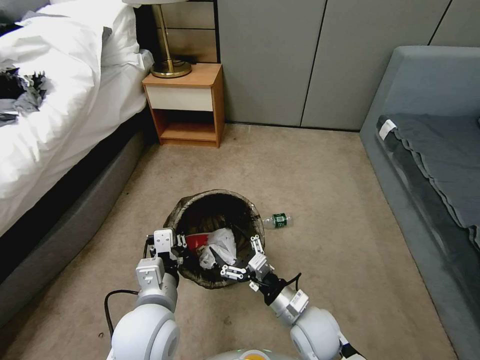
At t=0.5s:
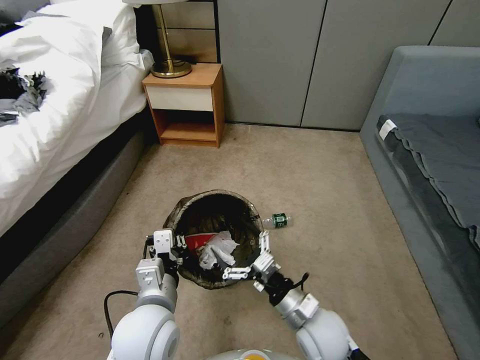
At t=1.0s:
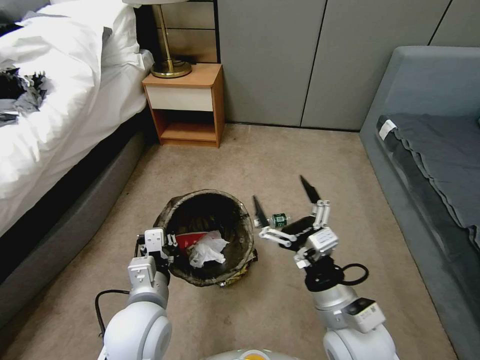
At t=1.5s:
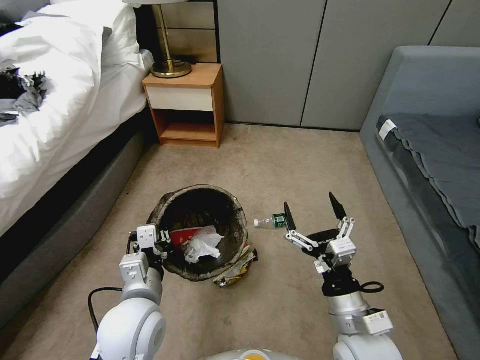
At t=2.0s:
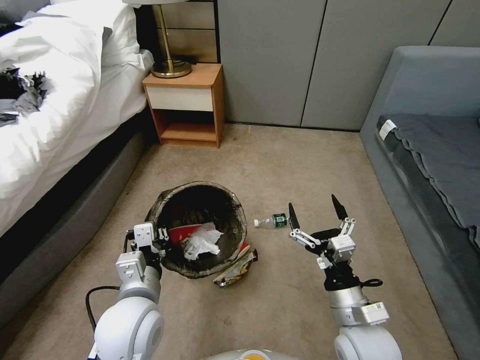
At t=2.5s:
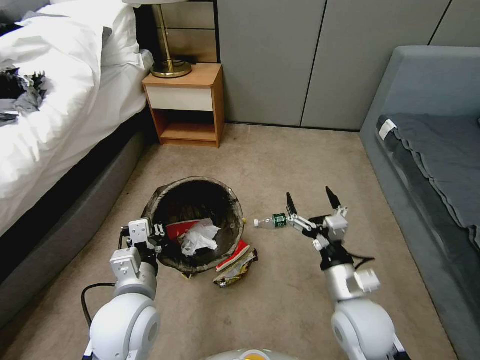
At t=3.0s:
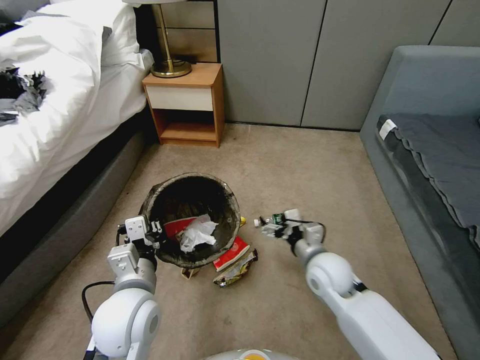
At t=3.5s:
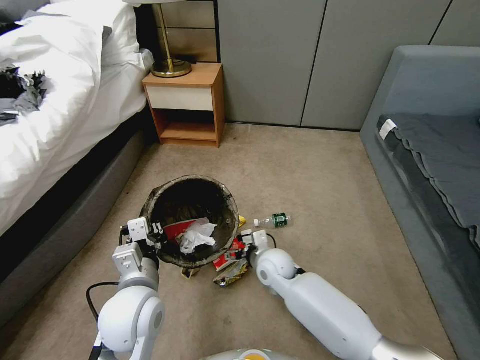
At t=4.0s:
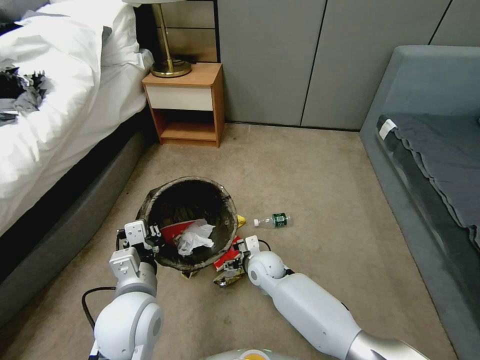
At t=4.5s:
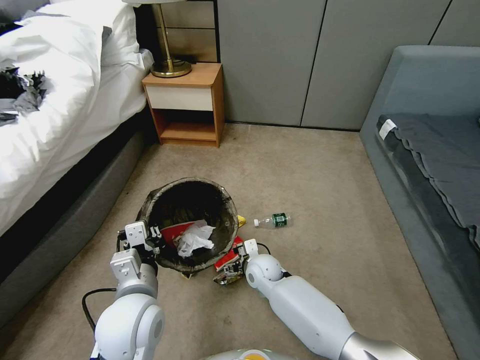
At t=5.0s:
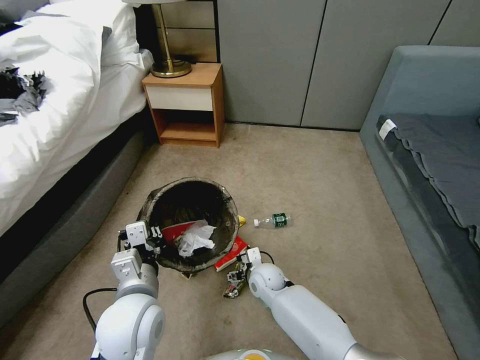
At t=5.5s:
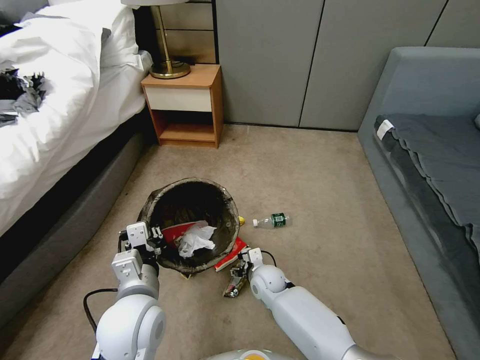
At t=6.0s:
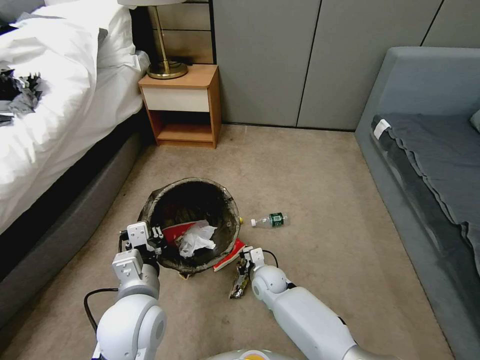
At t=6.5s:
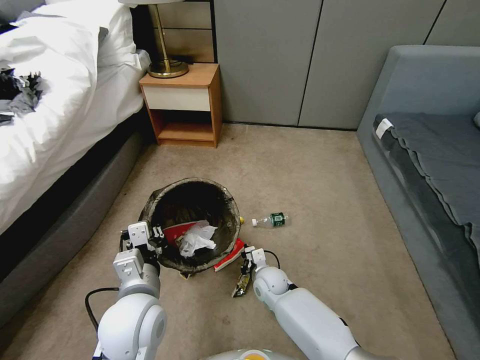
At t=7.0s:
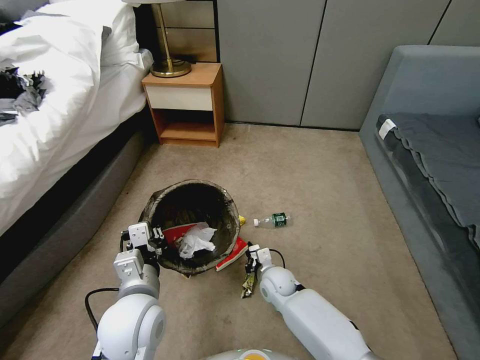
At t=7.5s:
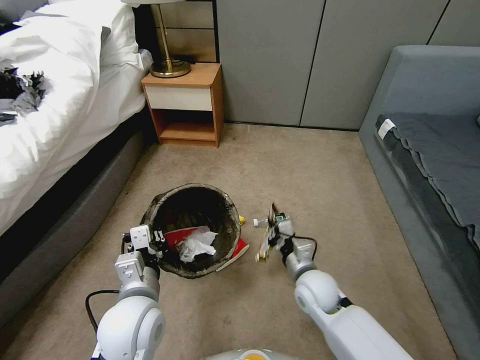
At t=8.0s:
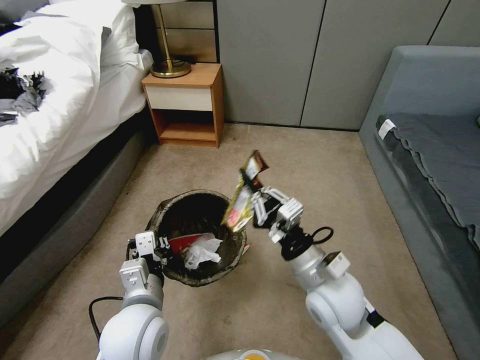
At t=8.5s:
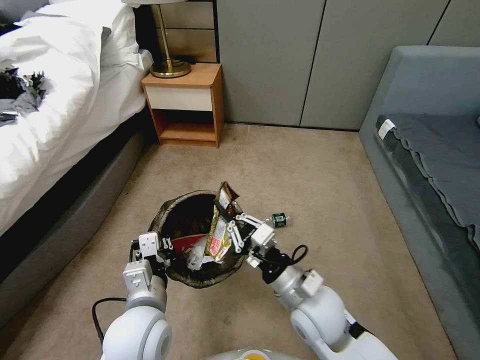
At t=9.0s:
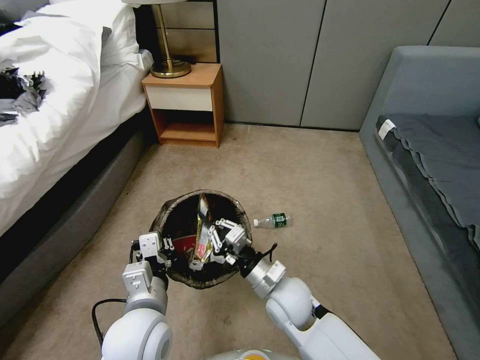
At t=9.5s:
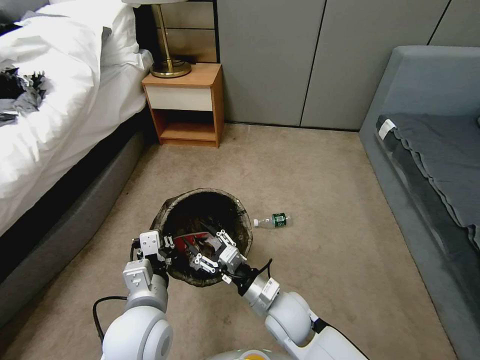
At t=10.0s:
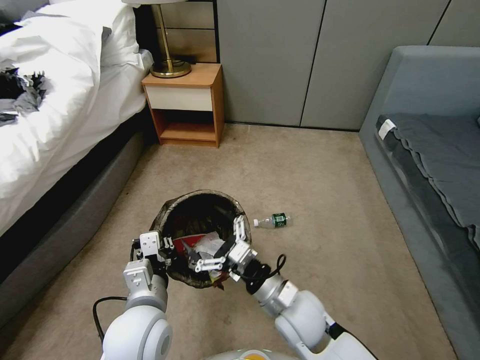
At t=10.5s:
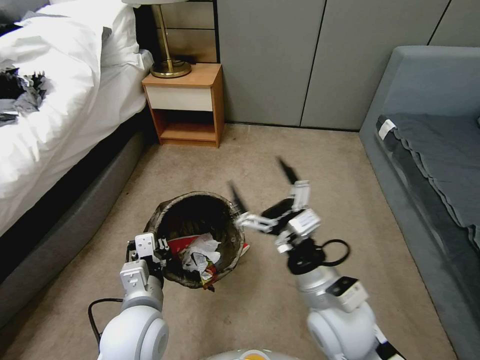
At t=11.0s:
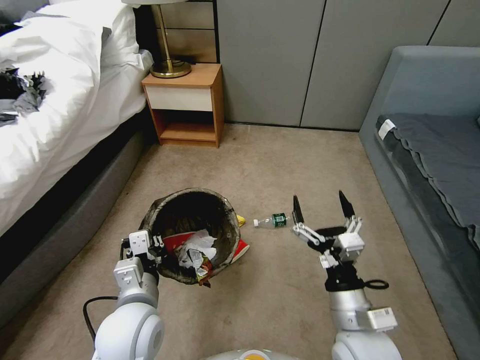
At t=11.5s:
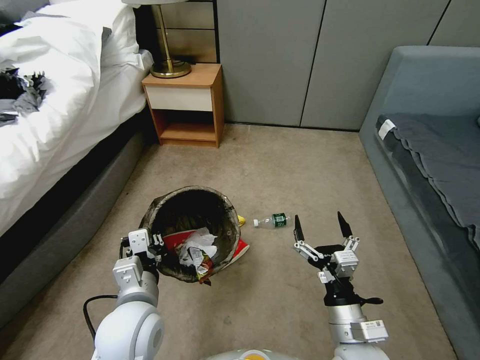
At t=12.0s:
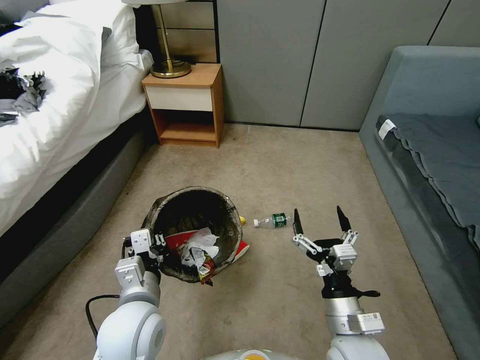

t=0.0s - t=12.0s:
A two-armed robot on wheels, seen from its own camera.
Task of the whole recording: Pick up the trash bin, then pick up the garbage from the floor and place it into the trash bin.
t=0.0s - t=2.0s: The right gripper moves upward and to the right, about 10 cm.
t=2.0s - t=4.0s: The right gripper is displaced forward, to the left and downward by roughly 30 cm.
t=4.0s - t=6.0s: The right gripper is displaced downward by some 5 cm, and closes up.
t=6.0s - t=8.0s: The right gripper shifts roughly 25 cm upward and backward, and closes.
t=8.0s - t=10.0s: The right gripper travels downward and to the left by some 10 cm, and opens up.
t=10.0s - t=12.0s: The right gripper is displaced to the right and backward by about 10 cm, and moves some 10 cm upward and comes back.

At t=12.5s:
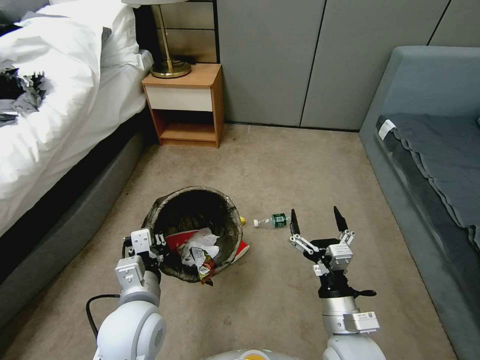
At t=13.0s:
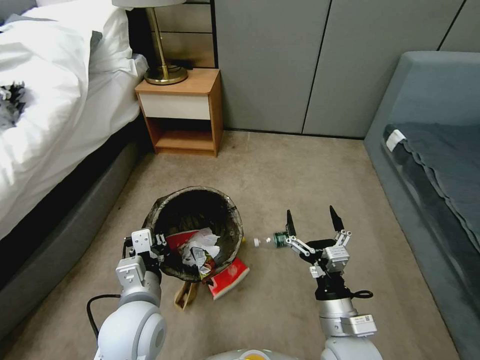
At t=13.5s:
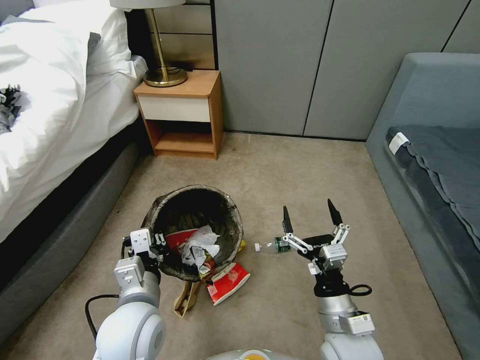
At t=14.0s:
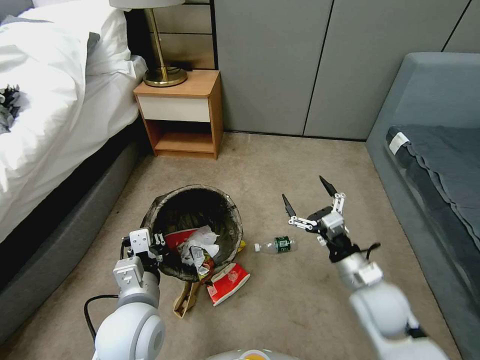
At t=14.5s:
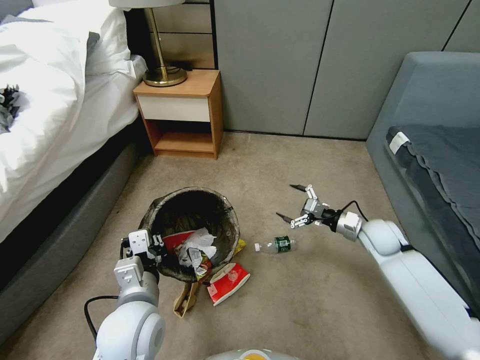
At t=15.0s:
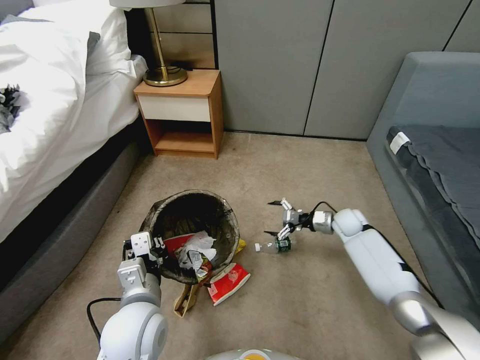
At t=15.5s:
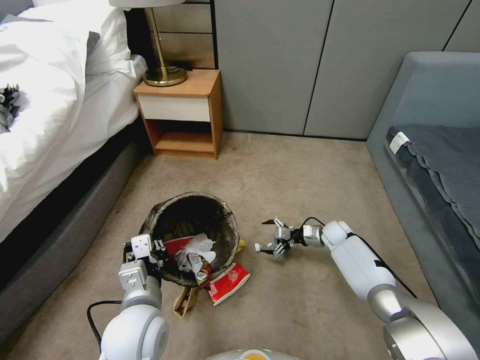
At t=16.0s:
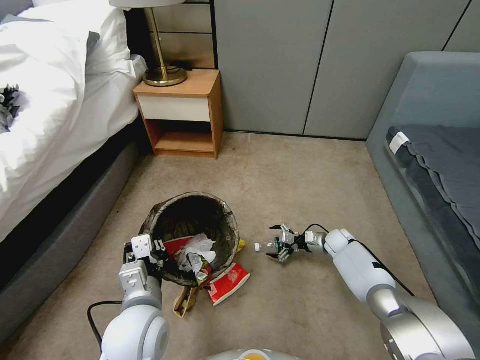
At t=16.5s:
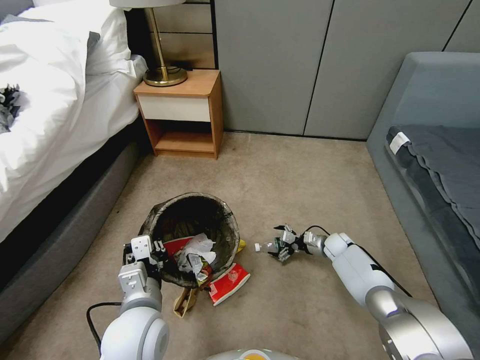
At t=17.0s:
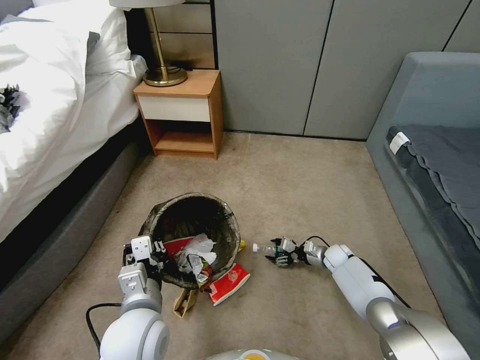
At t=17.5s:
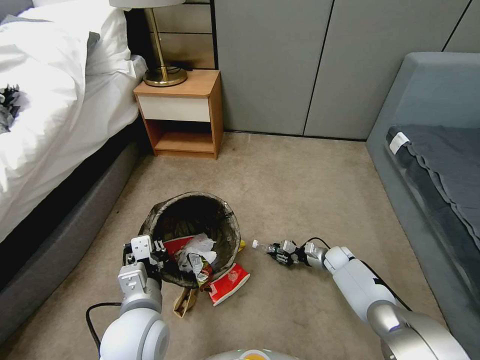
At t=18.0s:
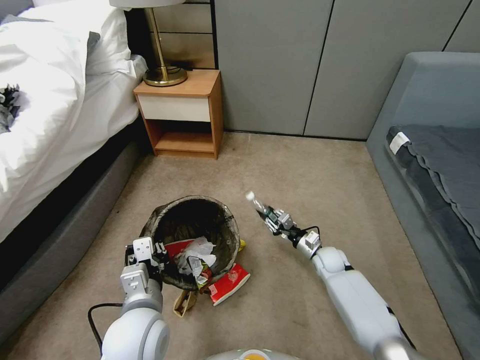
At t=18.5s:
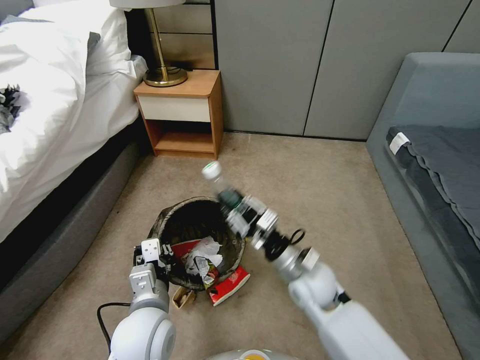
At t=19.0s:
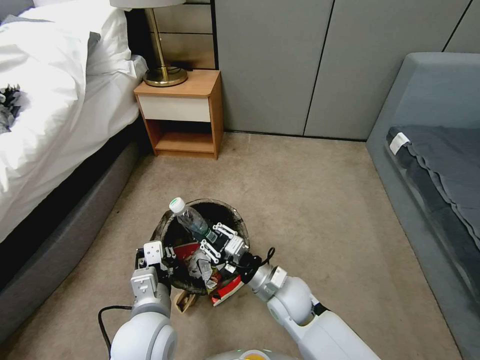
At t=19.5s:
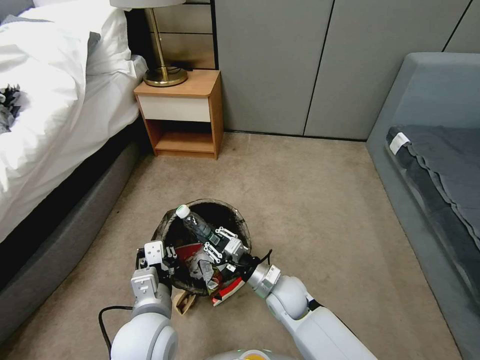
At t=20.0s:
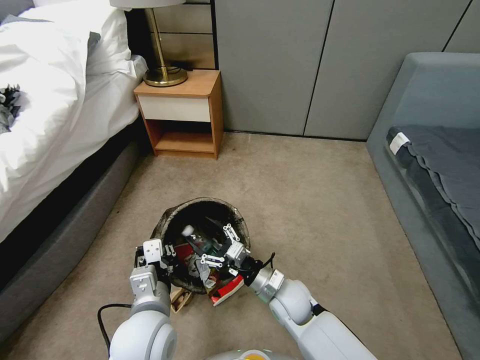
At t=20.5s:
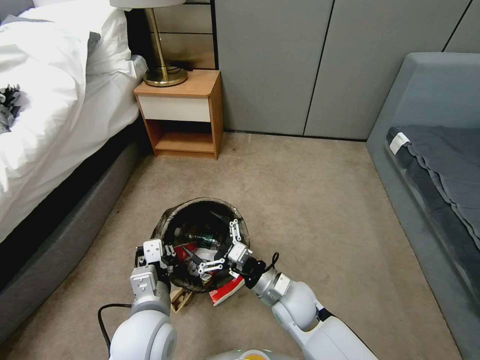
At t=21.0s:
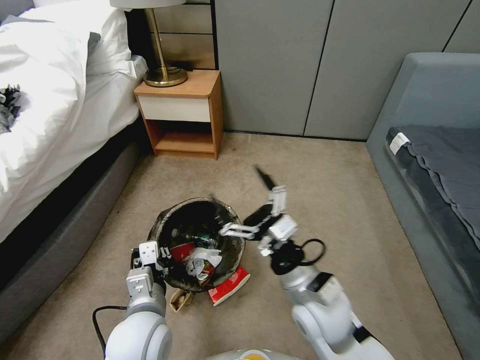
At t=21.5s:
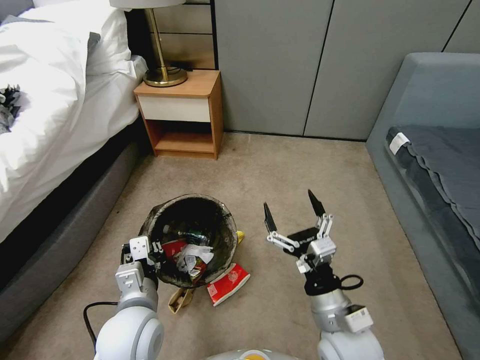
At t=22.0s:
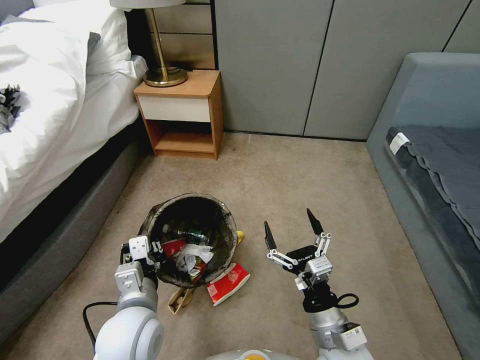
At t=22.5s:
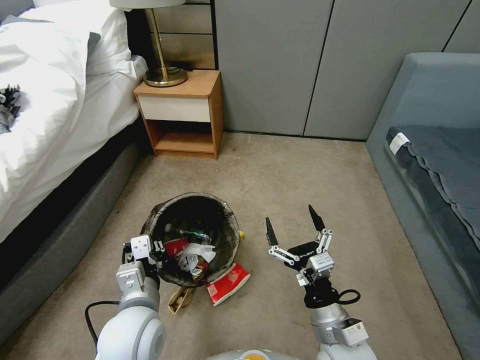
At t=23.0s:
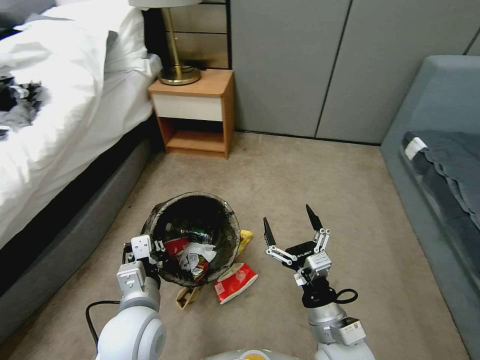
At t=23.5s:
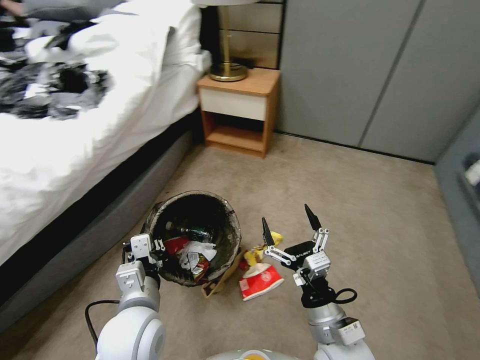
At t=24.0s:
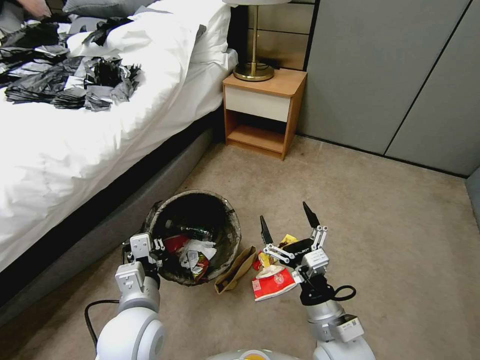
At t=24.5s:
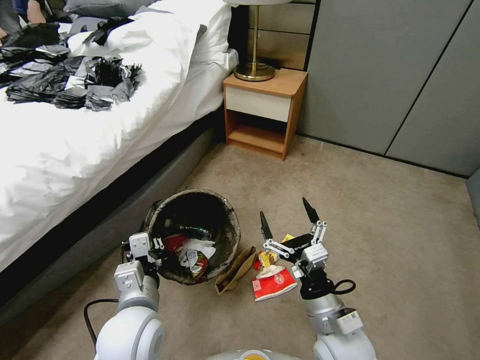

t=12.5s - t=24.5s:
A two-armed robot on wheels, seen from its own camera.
Task of the whole recording: Pick up the trash bin, then pick up the garbage from the floor and place it into the trash bin.
t=12.5s - t=14.5s: The right gripper moves forward and to the right, some 30 cm.
t=14.5s - t=16.5s: The right gripper shifts some 15 cm downward.
t=16.5s - t=18.5s: The right gripper moves upward, to the left and backward, roughly 30 cm, and closes its fingers.
t=18.5s - t=20.5s: The right gripper shifts by approximately 10 cm, and opens its fingers.
t=20.5s - t=22.5s: The right gripper travels backward and to the right by approximately 15 cm.

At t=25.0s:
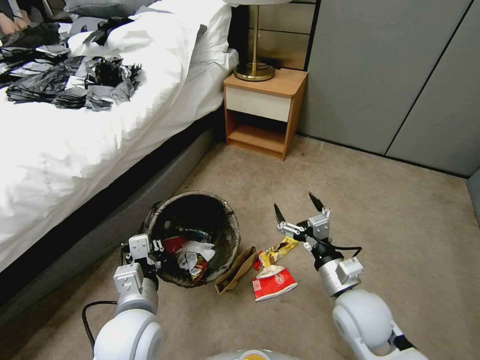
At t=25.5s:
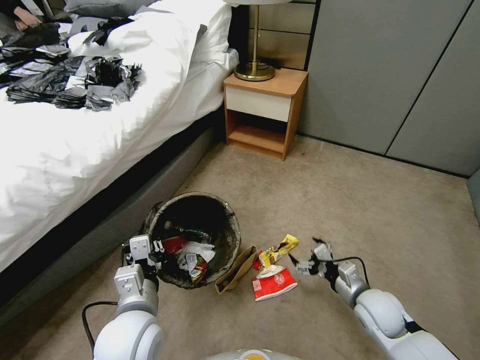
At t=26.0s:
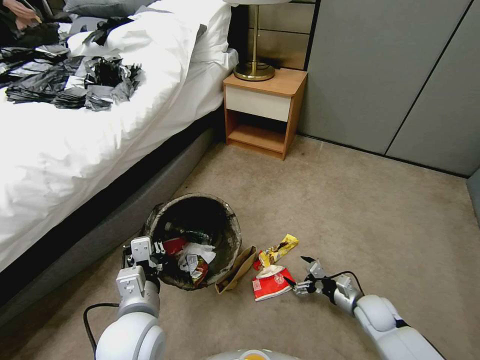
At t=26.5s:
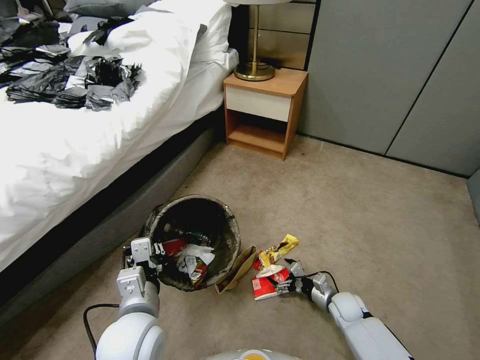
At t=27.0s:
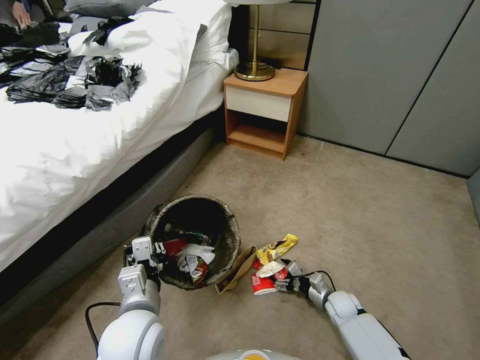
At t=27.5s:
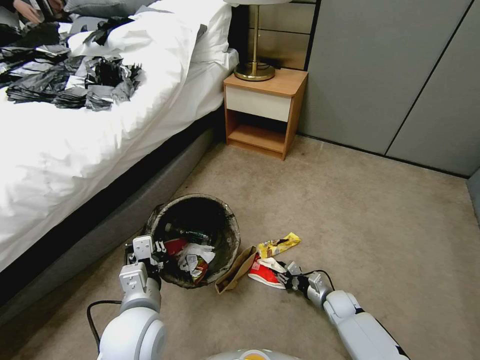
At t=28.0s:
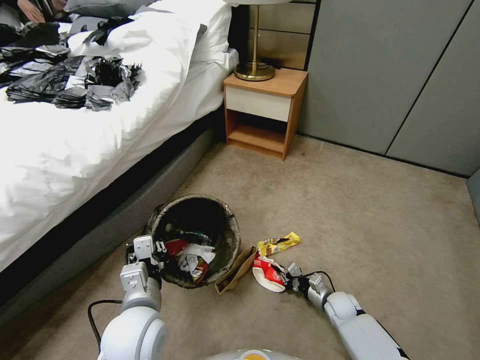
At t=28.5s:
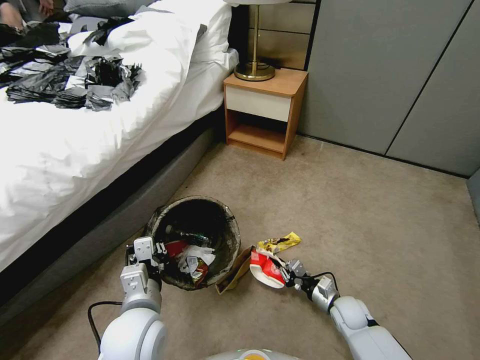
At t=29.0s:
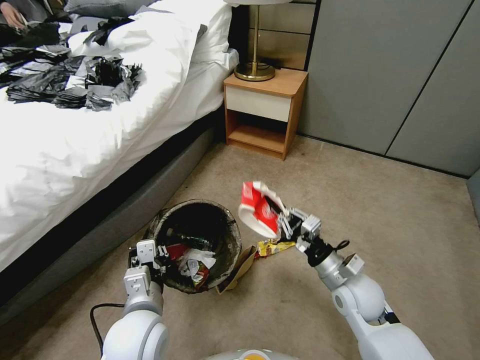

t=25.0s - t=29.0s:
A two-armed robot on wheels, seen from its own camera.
Task of the whole recording: Pick up the trash bin, then pick up the garbage from the floor and place it into the trash bin.
t=25.0s - t=27.0s: The right gripper goes roughly 25 cm downward.
t=27.0s - t=29.0s: The right gripper goes approximately 25 cm upward, and closes up.
